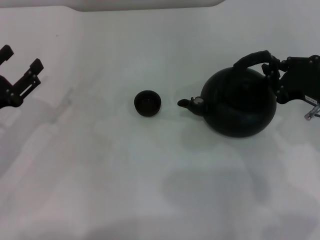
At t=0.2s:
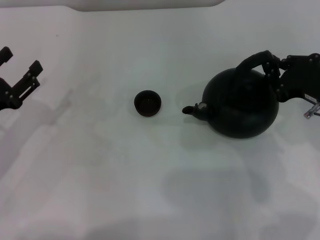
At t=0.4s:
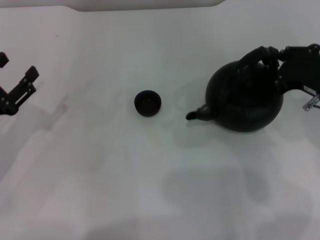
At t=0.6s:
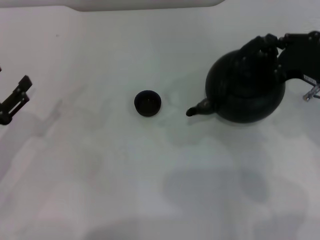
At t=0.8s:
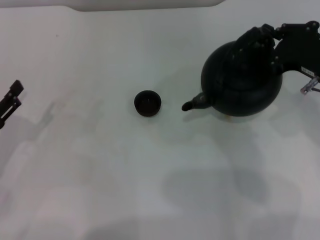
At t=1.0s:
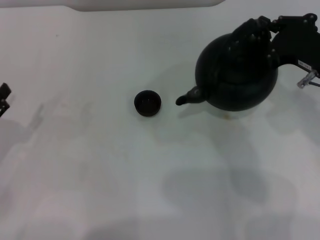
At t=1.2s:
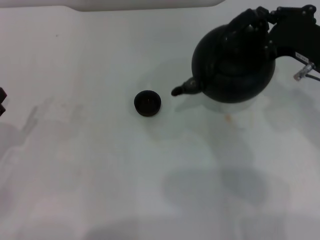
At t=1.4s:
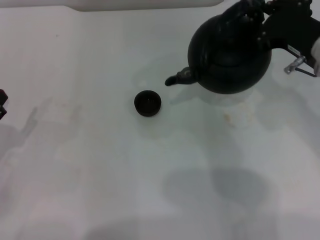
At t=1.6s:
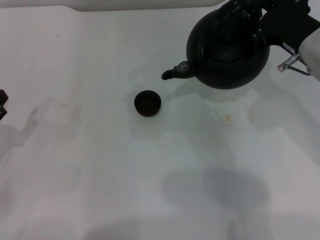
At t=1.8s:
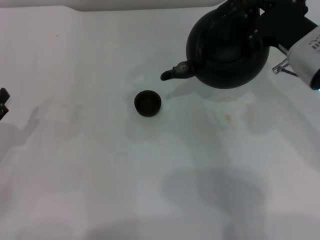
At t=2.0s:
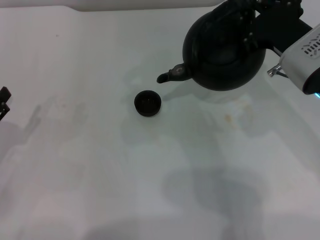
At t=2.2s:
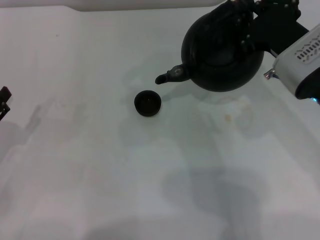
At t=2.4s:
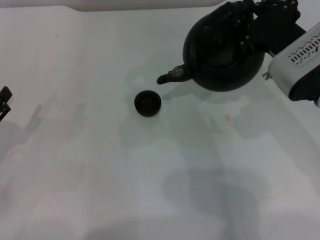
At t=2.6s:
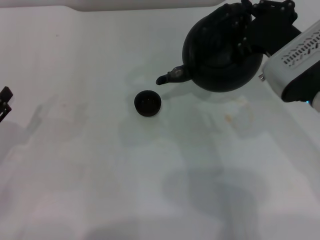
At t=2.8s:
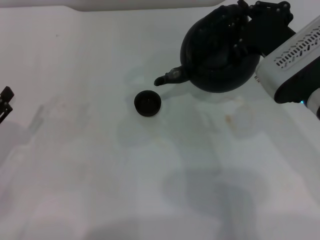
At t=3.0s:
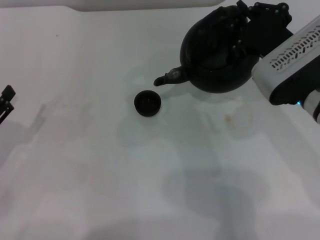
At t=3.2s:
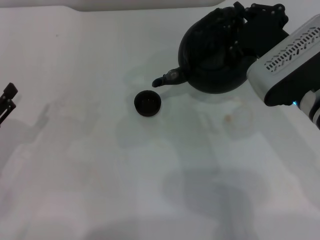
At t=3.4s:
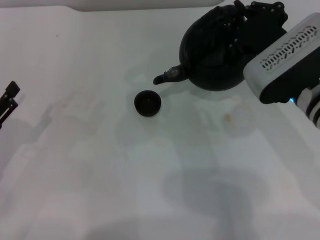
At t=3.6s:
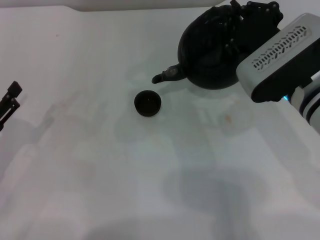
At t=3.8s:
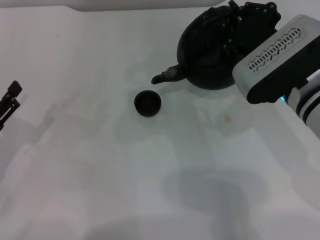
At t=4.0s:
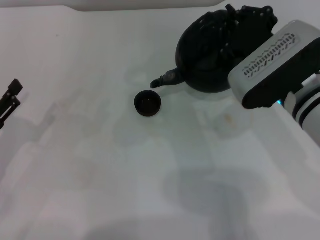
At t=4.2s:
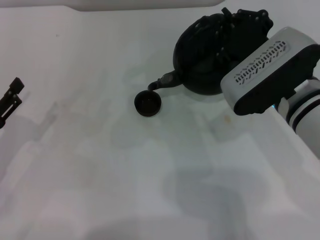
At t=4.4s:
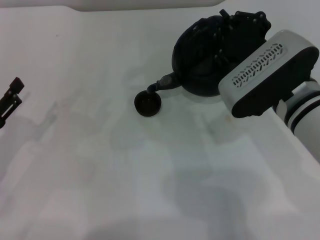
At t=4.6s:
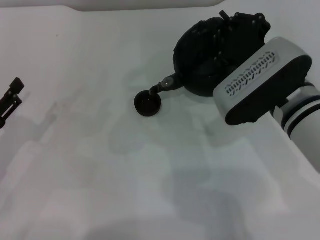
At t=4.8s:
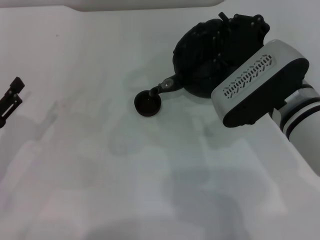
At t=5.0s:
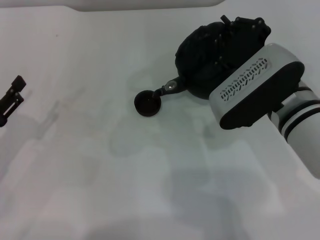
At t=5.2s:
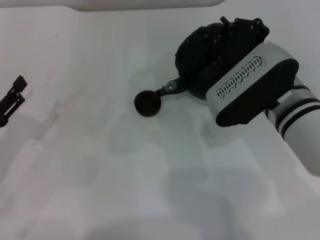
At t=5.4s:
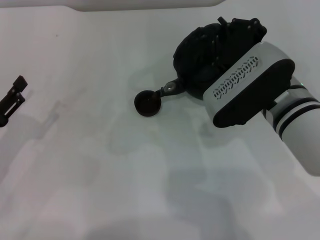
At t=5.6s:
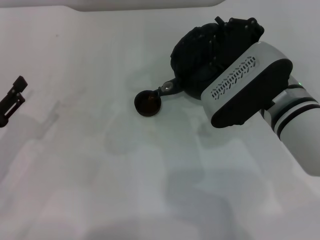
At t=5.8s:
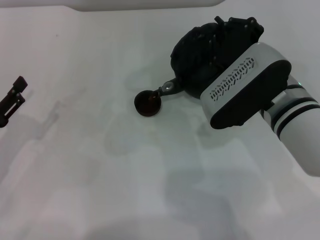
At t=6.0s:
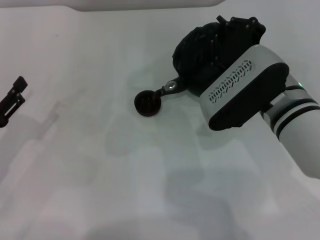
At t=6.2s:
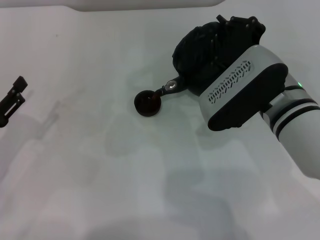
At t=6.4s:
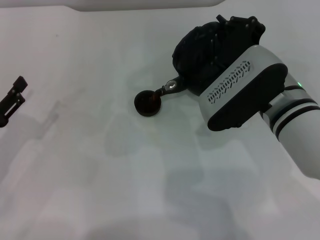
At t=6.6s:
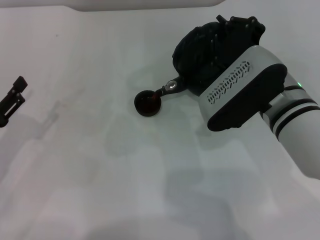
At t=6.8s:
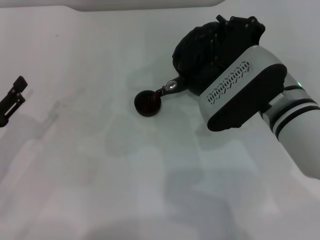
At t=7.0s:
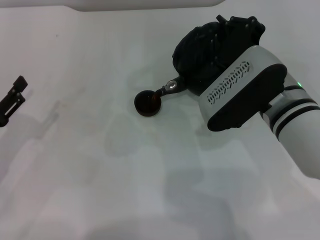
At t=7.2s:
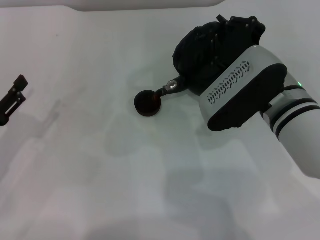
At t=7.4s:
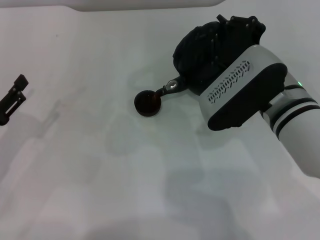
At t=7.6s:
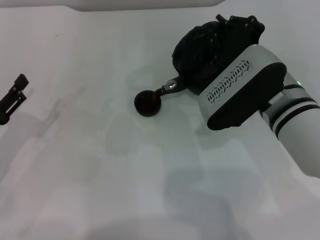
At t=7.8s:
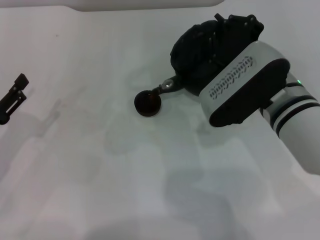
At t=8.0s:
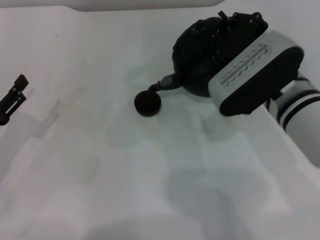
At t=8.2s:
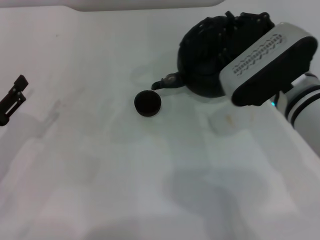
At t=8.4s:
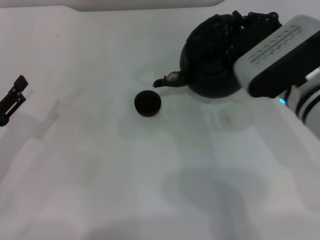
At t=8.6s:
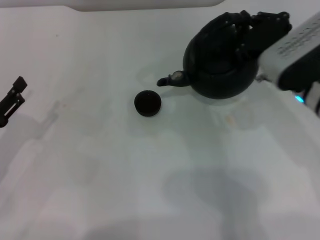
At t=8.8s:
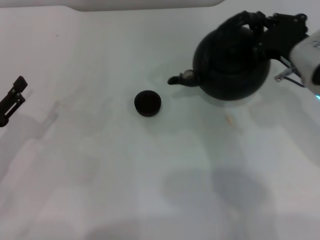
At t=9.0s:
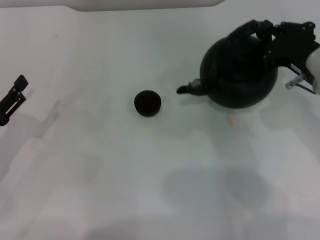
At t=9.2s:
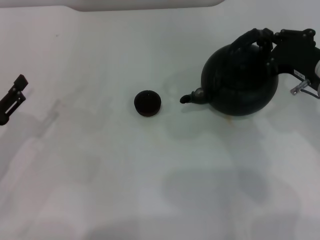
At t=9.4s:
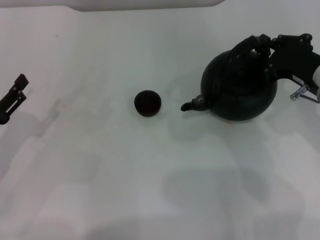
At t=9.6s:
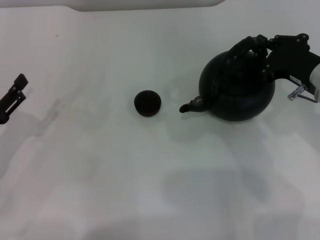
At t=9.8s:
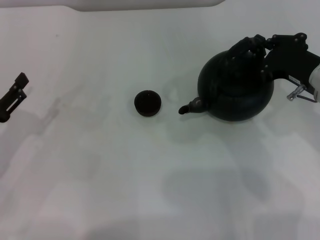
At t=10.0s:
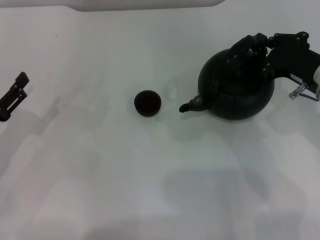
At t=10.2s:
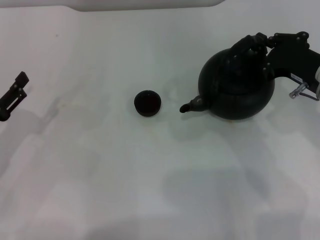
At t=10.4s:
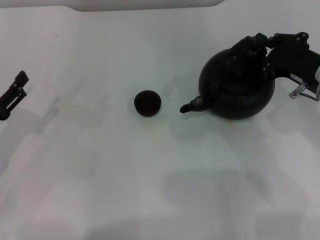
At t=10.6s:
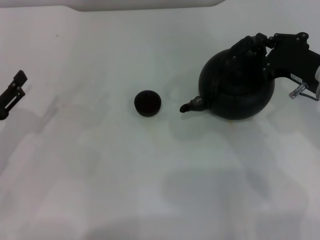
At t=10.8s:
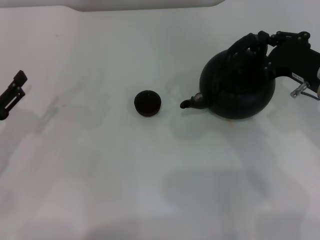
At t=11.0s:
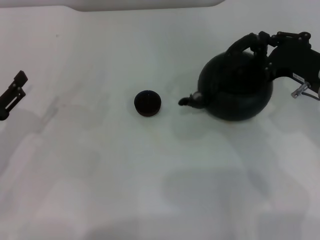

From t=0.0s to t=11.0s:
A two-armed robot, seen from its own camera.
Task of the whole recording: Grasp the handle of the teapot with one hand and pour tea into the teacup.
Step, from t=1.2s to t=8.4s: Pour tea into the teacup with the right gripper.
From t=0.0s to t=1.6s: The right gripper is displaced to the left and upward by about 10 cm. Meanwhile the left gripper shifts some 5 cm backward.
From t=1.6s to t=3.2s: The grippers stay close to where they were, moving slightly.
From t=3.2s to t=6.2s: The grippers stay close to where they were, moving slightly.
From t=6.2s to t=7.8s: The two grippers keep their place.
From t=7.8s to t=9.4s: The right gripper heads to the right, covering some 10 cm.
From t=9.4s to t=11.0s: The two grippers keep their place.

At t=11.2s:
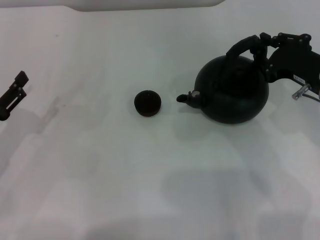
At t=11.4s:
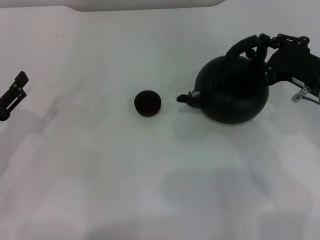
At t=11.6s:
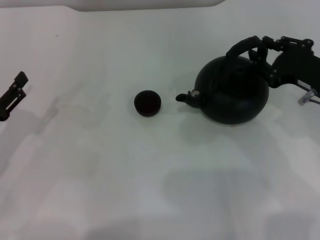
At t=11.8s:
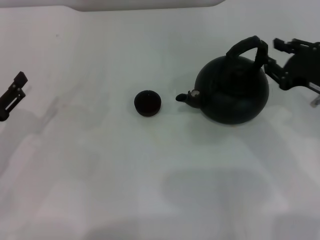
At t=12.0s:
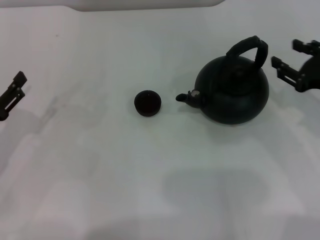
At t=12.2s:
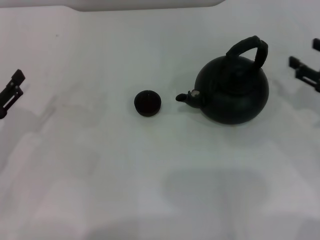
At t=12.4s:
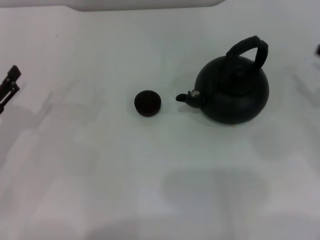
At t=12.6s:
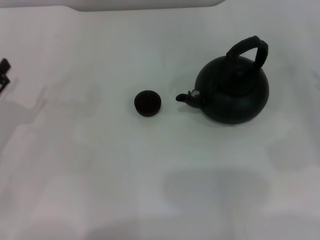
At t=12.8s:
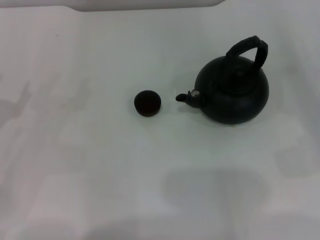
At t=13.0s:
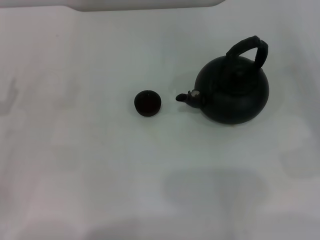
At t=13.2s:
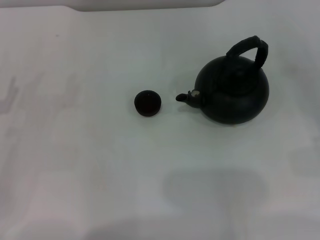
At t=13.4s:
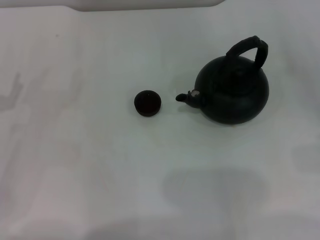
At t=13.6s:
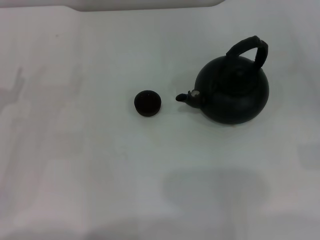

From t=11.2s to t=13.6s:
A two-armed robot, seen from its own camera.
Task of the whole recording: Grasp the handle of the teapot with one hand and pour tea into the teacup.
From t=11.2s to t=12.4s: The right gripper moves to the right, roughly 10 cm, and opens its fingers.
